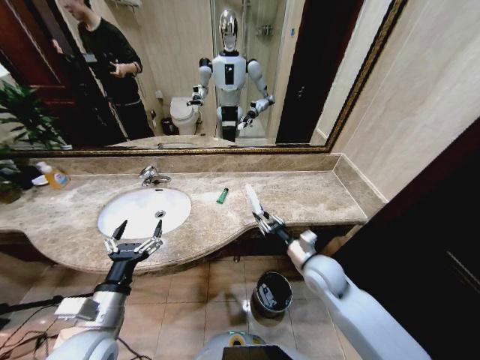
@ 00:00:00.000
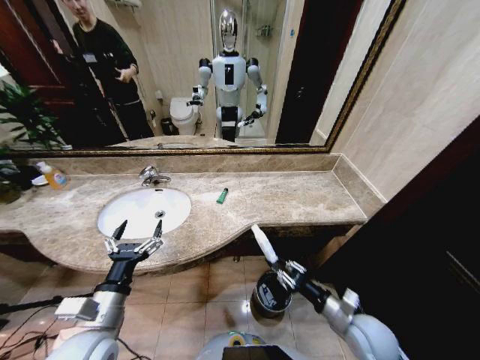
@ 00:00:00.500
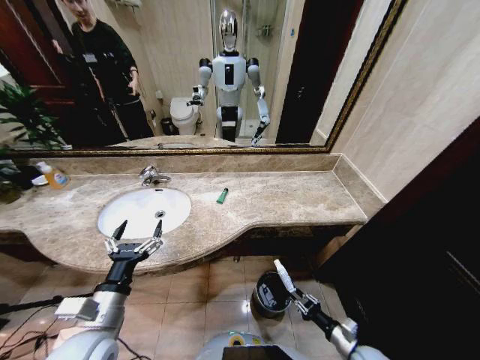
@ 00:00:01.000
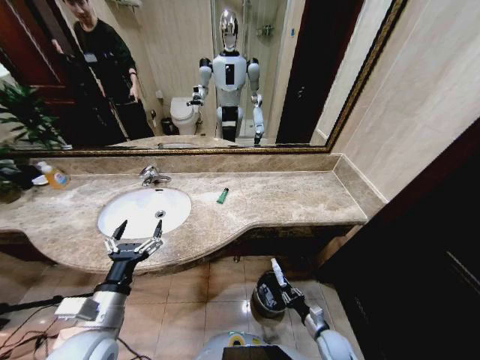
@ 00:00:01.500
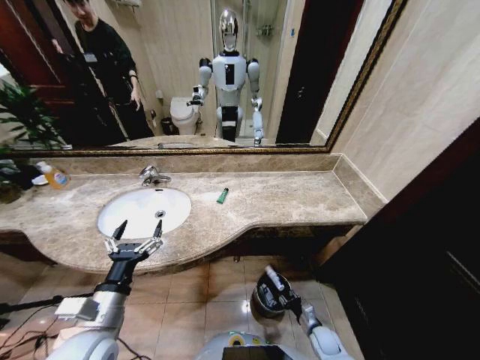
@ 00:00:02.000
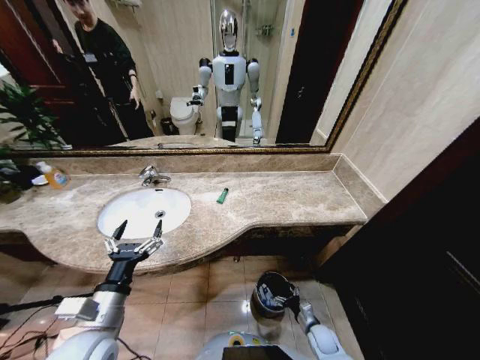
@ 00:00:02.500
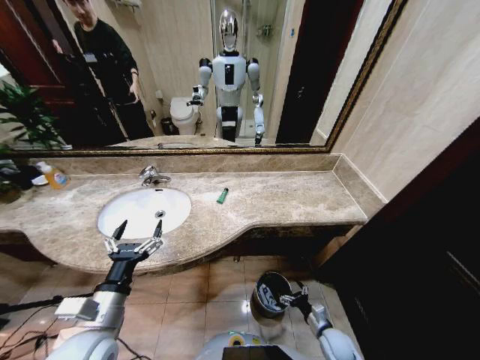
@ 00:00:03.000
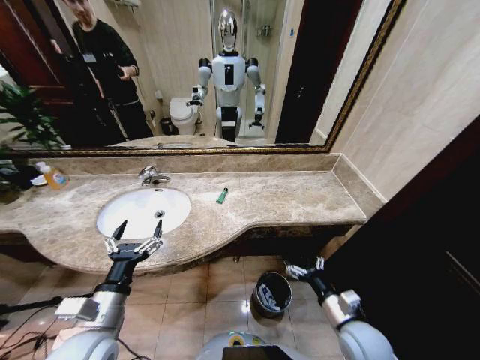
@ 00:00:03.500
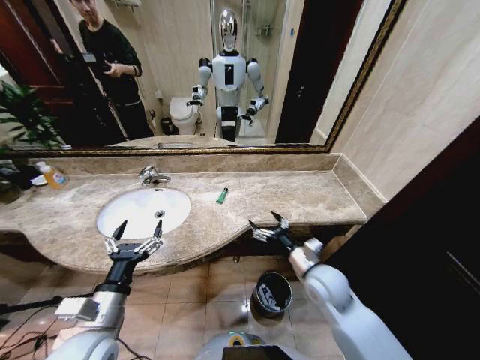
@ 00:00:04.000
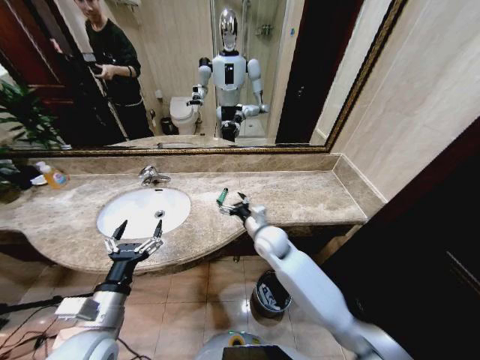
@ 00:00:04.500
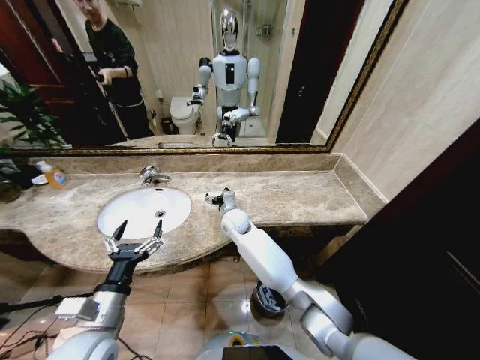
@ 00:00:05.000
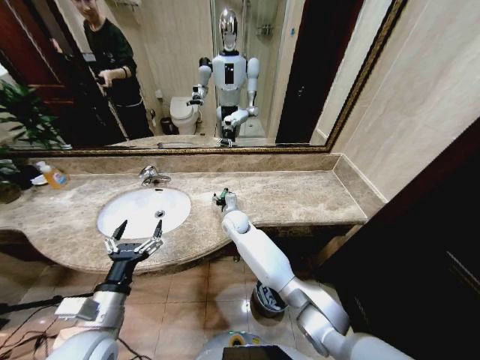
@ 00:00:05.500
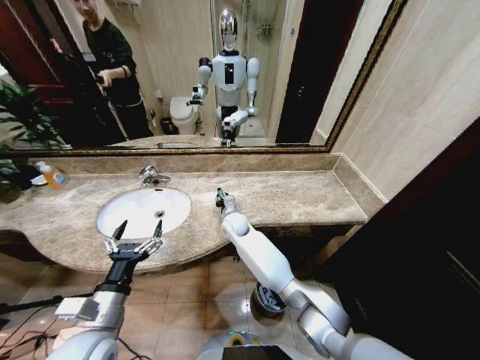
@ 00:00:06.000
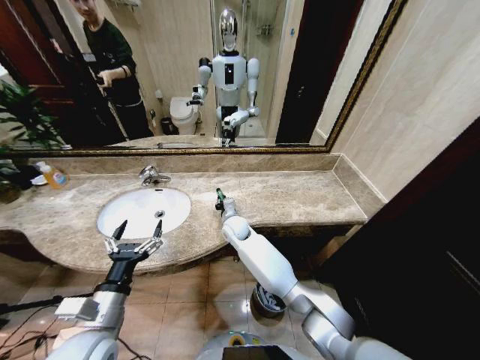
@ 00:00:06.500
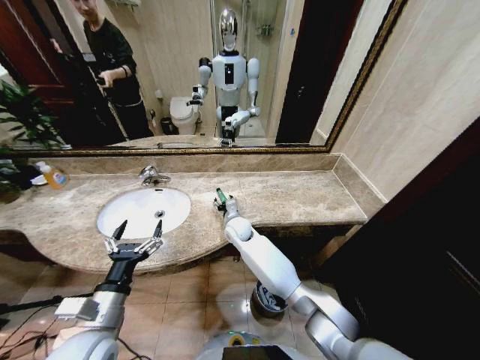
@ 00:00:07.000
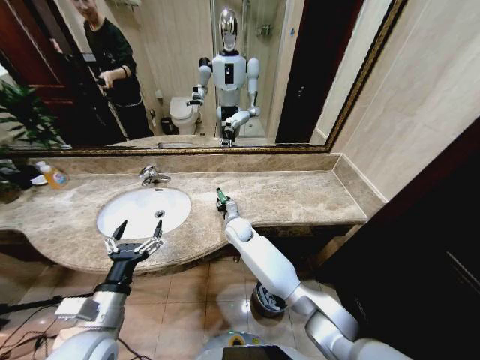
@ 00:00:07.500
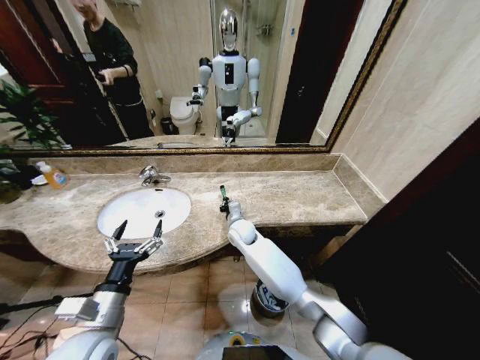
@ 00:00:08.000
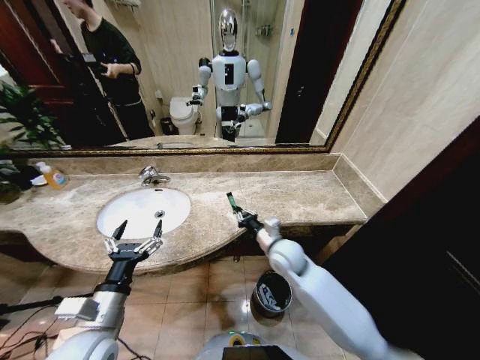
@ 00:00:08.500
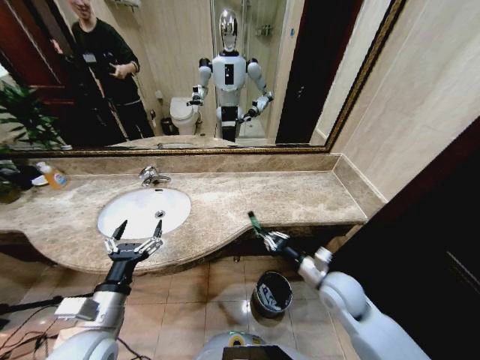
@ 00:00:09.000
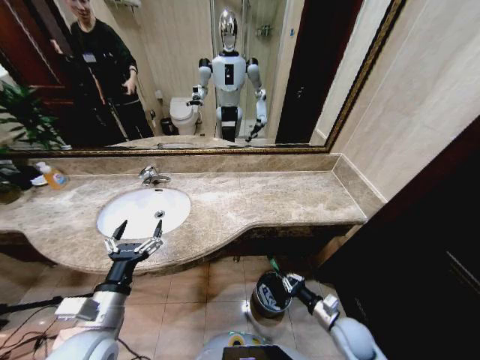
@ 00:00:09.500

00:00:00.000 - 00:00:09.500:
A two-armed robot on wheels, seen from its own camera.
Task of the whole recording: Pick up the trash from the sink and place it in the trash bin.
00:00:00.000 - 00:00:02.000: The right gripper shifts about 35 cm downward.
00:00:02.000 - 00:00:04.000: The right gripper moves upward, about 35 cm, and opens its fingers.
00:00:04.000 - 00:00:05.500: The right gripper heads to the left and forward, covering approximately 30 cm.
00:00:05.500 - 00:00:07.500: The right gripper closes, then reopens.
00:00:07.500 - 00:00:09.500: The right gripper shifts some 50 cm to the right, backward and downward, and closes.

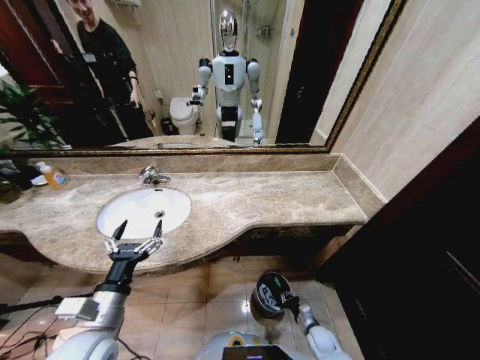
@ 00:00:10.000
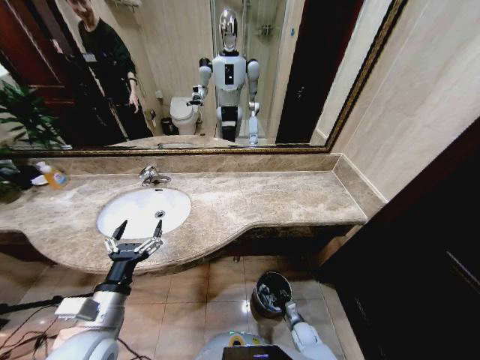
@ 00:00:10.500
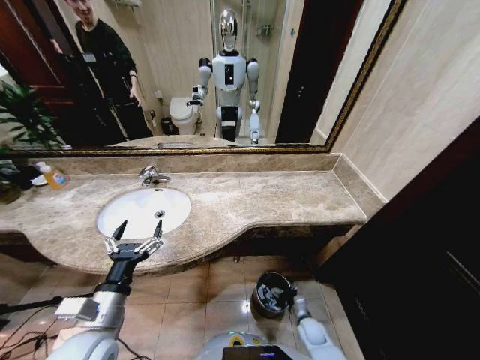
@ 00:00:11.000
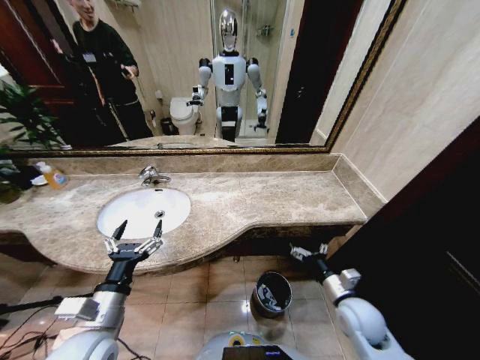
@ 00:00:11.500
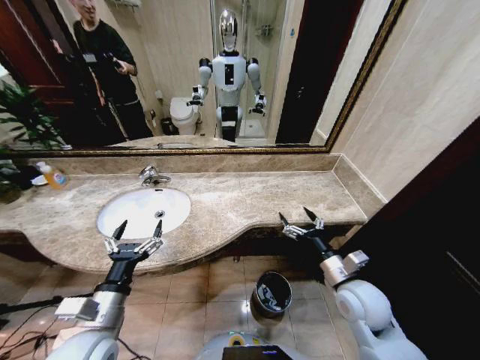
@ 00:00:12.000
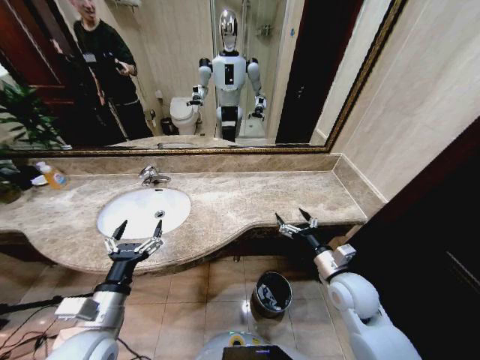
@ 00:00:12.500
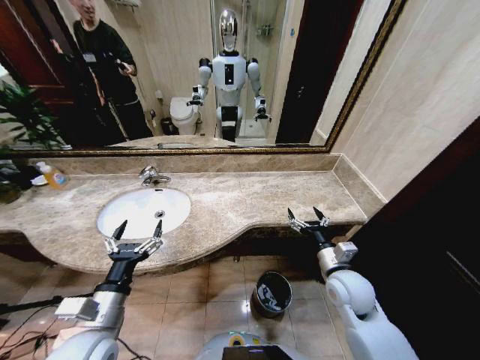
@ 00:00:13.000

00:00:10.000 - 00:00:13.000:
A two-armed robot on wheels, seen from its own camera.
Task of the whole recording: Pick up the trash from the sink and place it in the trash bin.
00:00:10.000 - 00:00:11.500: The right gripper is displaced upward by about 30 cm, and opens its fingers.
00:00:11.500 - 00:00:13.000: The right gripper goes some 5 cm upward.
